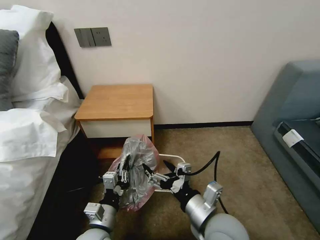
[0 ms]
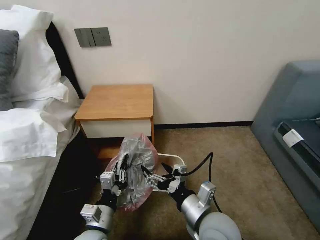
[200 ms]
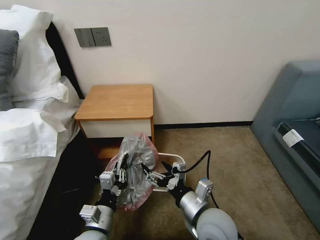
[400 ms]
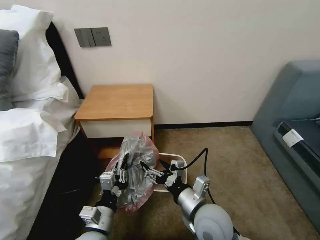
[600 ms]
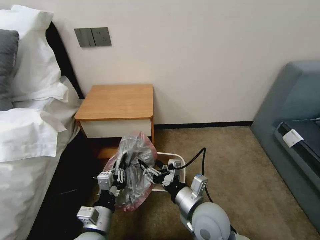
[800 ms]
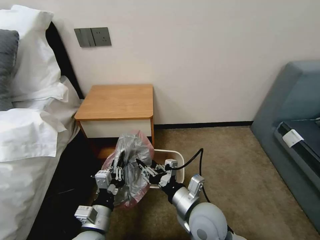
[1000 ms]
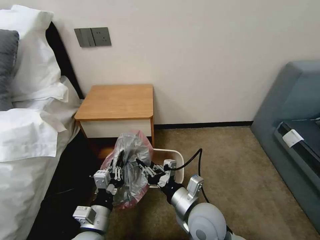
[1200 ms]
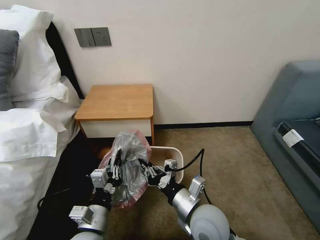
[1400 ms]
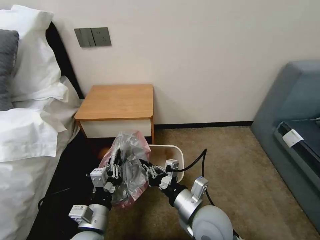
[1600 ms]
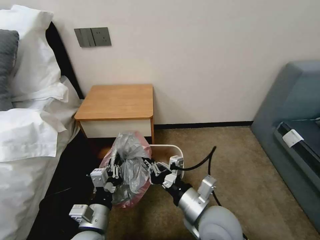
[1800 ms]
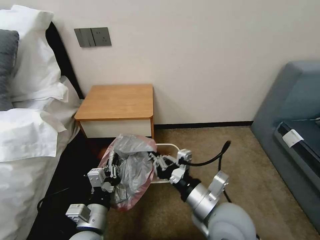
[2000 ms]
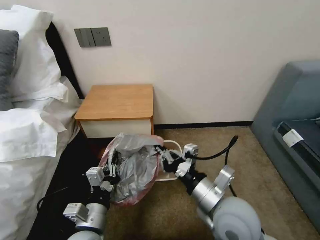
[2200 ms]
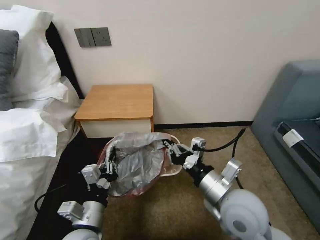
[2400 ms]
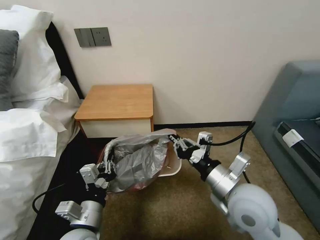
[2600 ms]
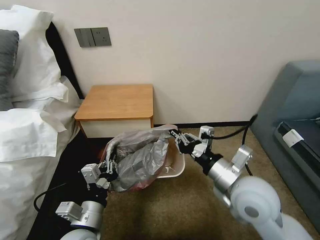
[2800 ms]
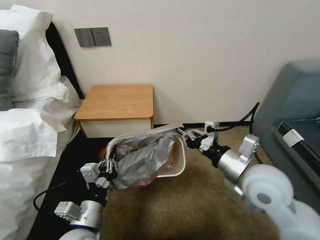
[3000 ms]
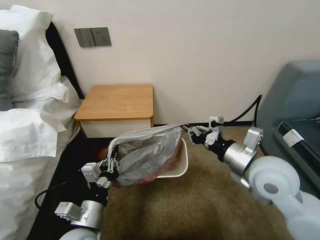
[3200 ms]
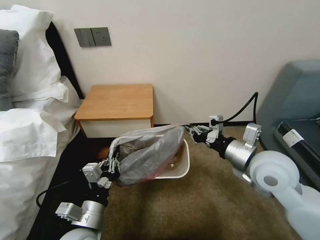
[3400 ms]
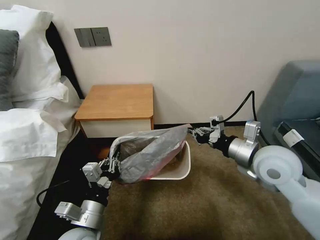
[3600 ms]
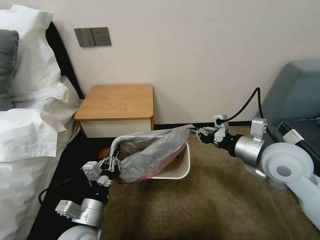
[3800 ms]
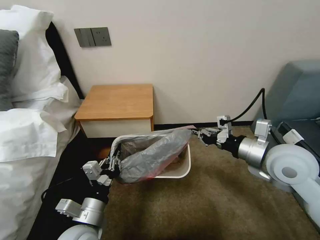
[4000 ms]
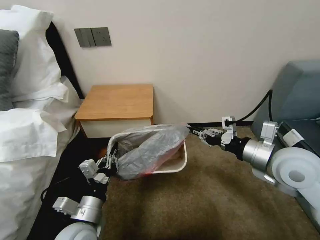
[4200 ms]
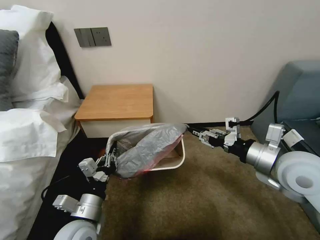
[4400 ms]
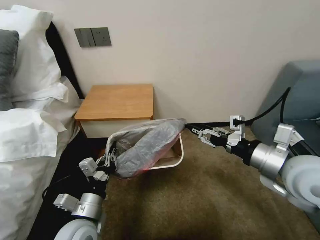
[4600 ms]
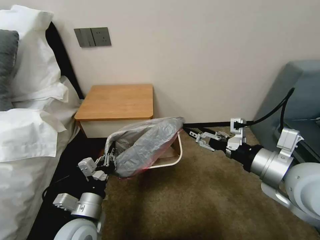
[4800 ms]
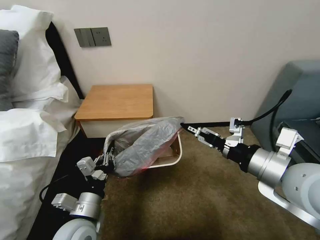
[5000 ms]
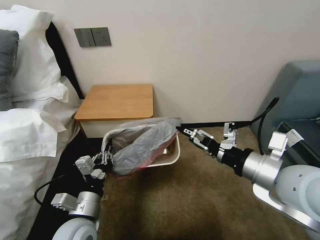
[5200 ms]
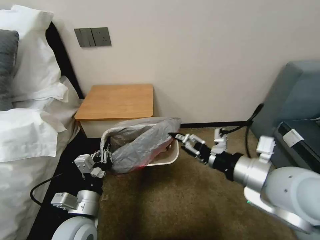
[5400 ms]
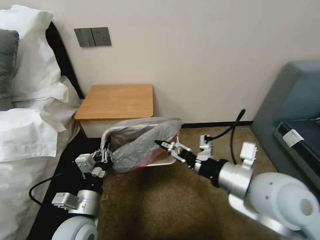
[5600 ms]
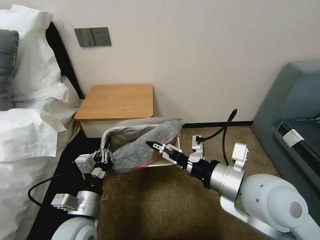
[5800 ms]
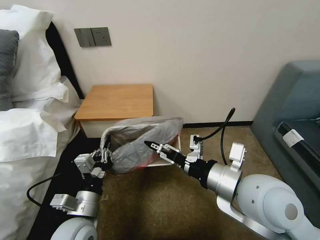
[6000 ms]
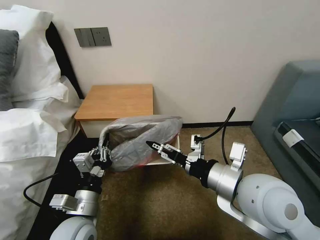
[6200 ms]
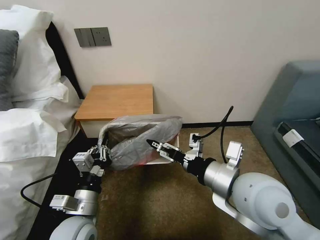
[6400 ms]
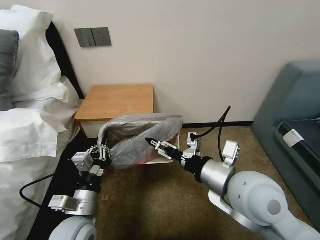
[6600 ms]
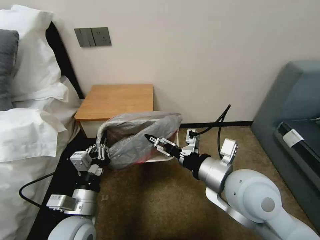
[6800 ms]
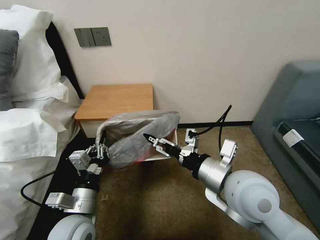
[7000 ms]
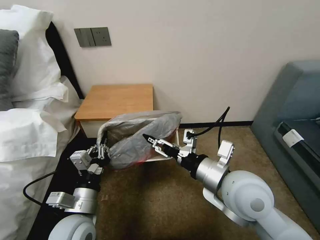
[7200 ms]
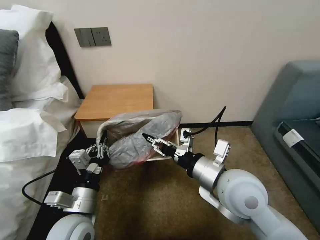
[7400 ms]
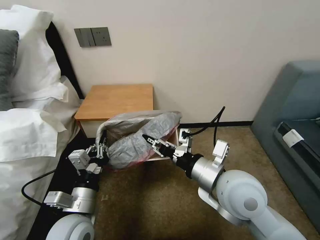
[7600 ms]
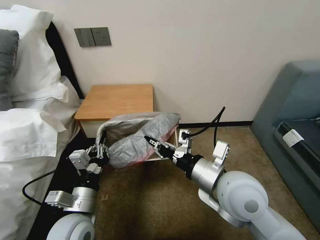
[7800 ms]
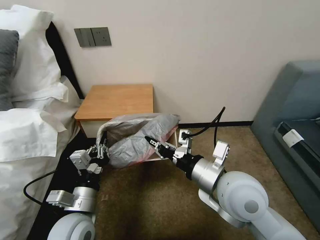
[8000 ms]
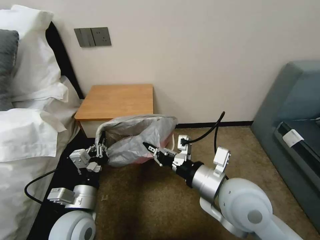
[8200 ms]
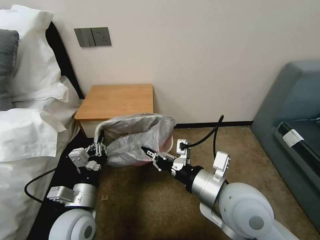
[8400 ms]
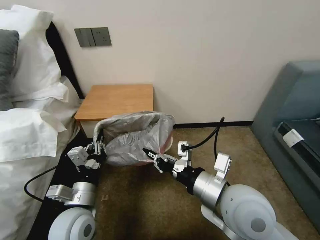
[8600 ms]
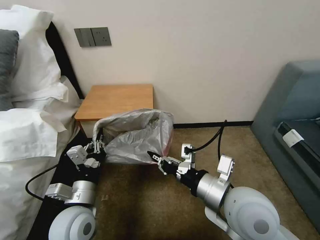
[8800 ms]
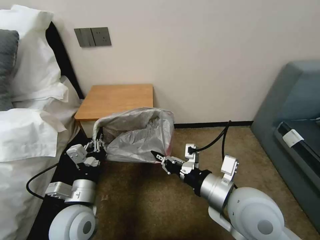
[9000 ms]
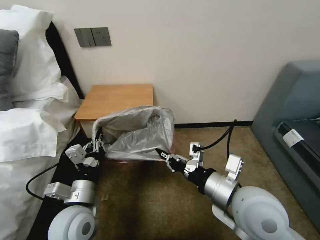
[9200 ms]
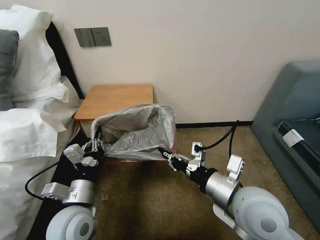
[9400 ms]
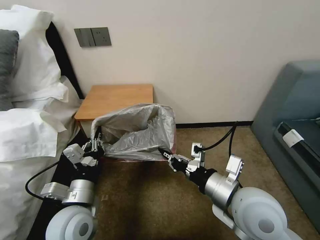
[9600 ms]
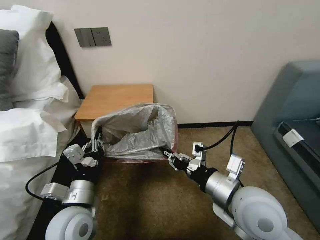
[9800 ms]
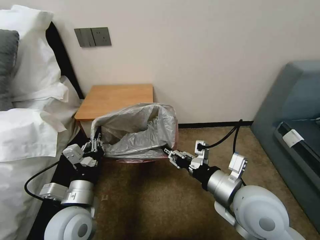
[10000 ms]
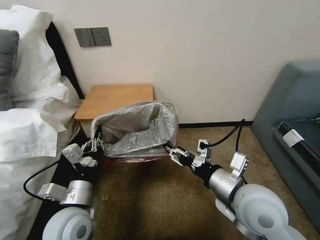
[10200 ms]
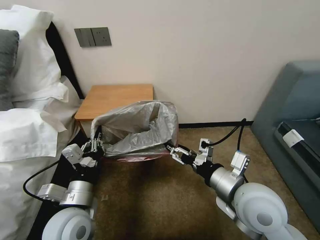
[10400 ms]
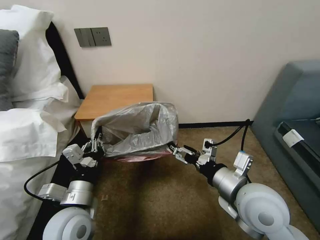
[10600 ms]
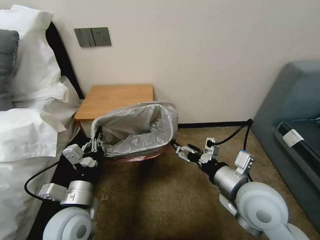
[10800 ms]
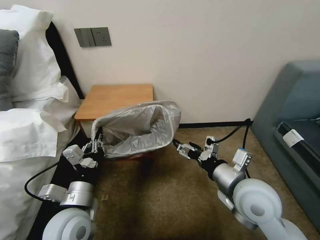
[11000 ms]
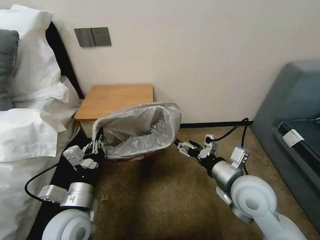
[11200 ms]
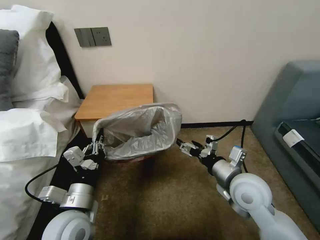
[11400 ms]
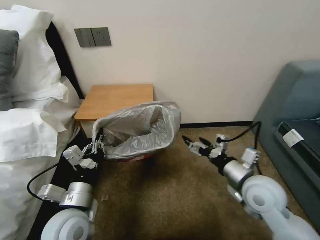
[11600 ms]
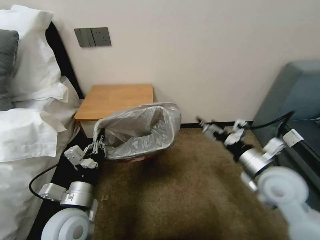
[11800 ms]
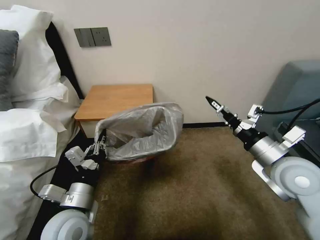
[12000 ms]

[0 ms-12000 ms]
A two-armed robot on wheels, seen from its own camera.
Task of the whole recording: Pick up the garbage bag from the table and place it over the trash can.
0 ms to 1600 ms: The right gripper closes up.
1600 ms to 3000 ms: The right gripper goes about 15 cm to the right, upward and forward.
3000 ms to 4400 ms: The right gripper heads to the right, covering some 5 cm, and opens.
4400 ms to 6000 ms: The right gripper shifts approximately 15 cm to the left and backward, and opens its fingers.
6000 ms to 7600 ms: The right gripper closes up.
7600 ms to 9000 ms: The grippers make only small movements.
9000 ms to 10400 ms: The right gripper opens its fingers.
10400 ms to 12000 ms: The right gripper goes about 10 cm to the right and forward.

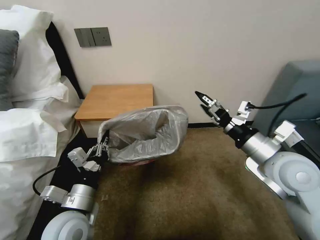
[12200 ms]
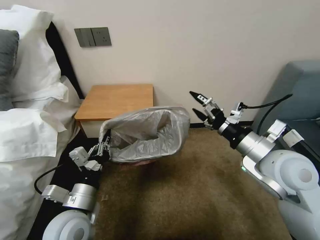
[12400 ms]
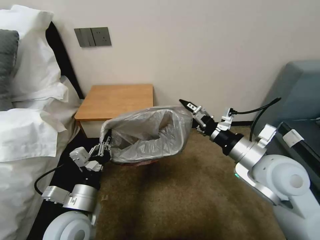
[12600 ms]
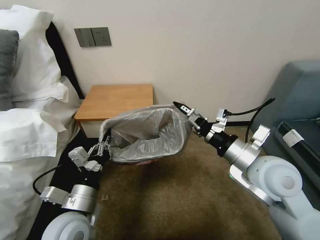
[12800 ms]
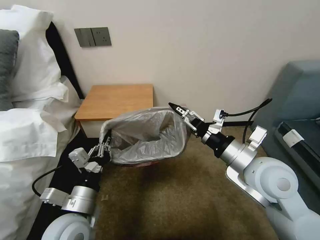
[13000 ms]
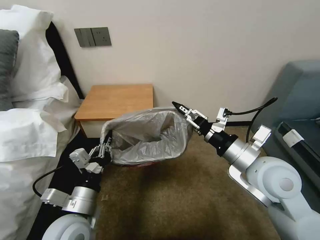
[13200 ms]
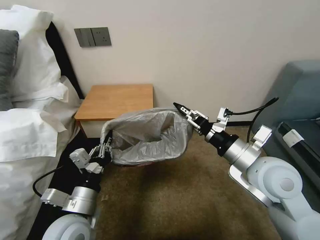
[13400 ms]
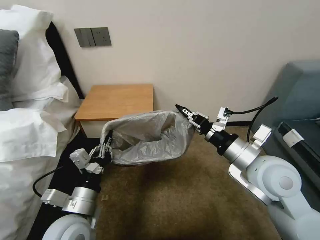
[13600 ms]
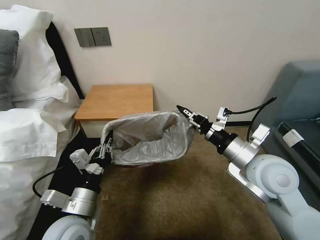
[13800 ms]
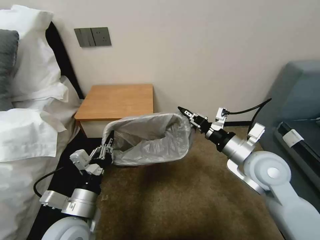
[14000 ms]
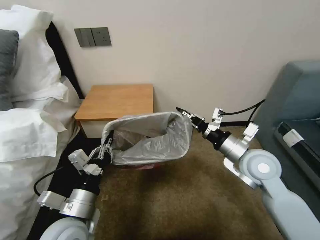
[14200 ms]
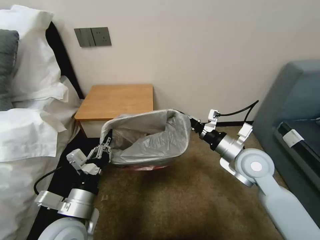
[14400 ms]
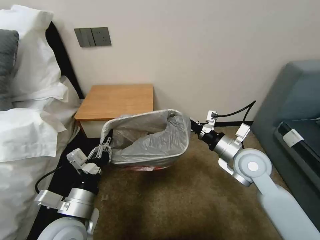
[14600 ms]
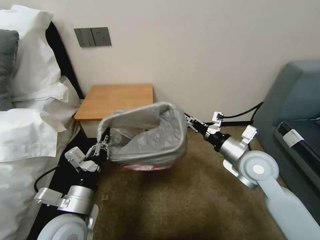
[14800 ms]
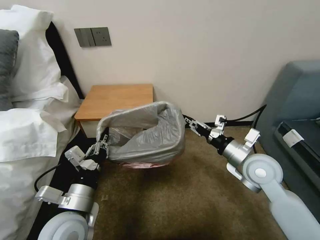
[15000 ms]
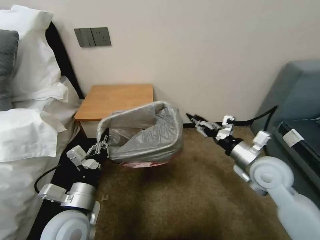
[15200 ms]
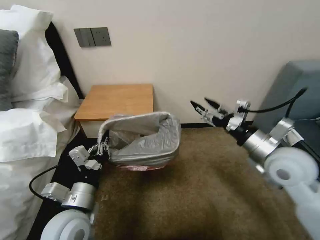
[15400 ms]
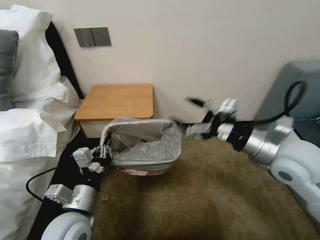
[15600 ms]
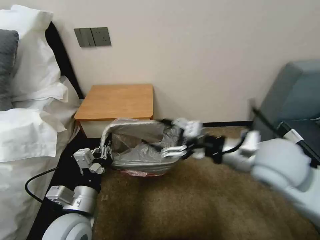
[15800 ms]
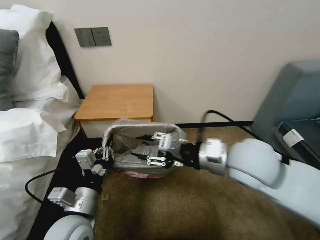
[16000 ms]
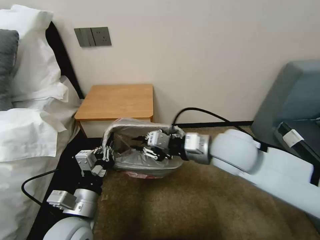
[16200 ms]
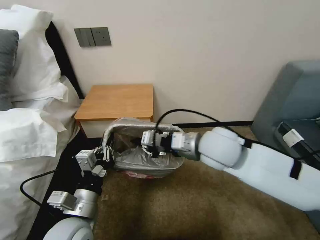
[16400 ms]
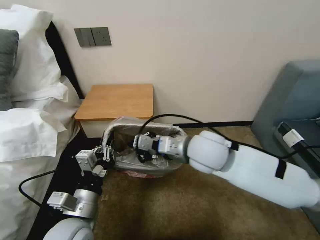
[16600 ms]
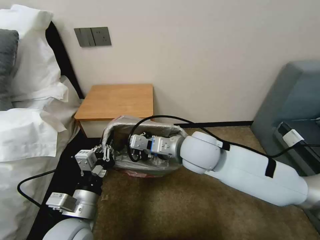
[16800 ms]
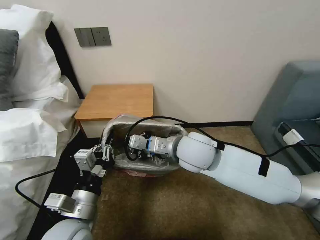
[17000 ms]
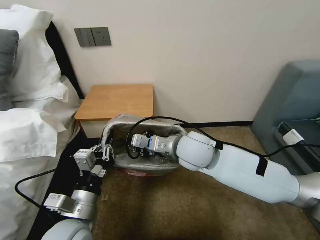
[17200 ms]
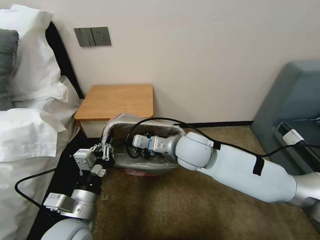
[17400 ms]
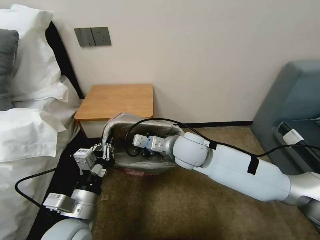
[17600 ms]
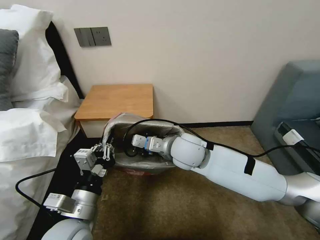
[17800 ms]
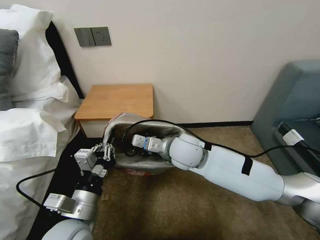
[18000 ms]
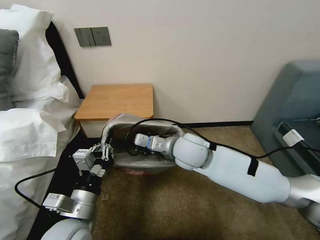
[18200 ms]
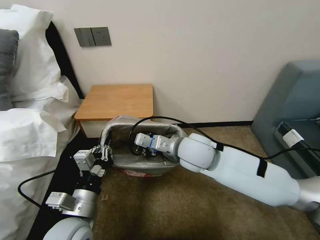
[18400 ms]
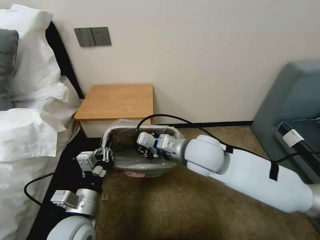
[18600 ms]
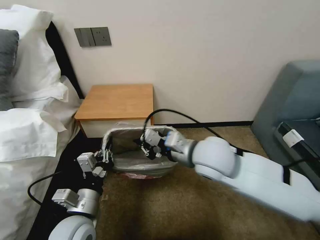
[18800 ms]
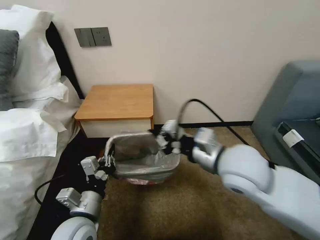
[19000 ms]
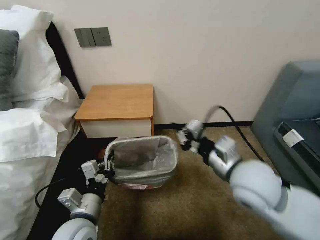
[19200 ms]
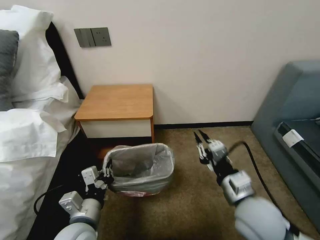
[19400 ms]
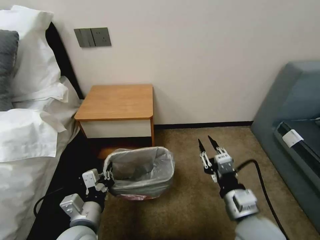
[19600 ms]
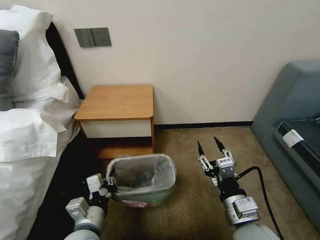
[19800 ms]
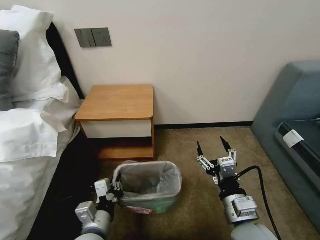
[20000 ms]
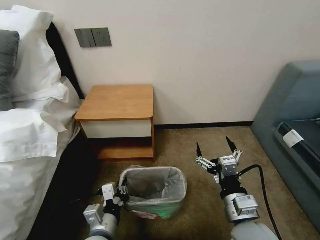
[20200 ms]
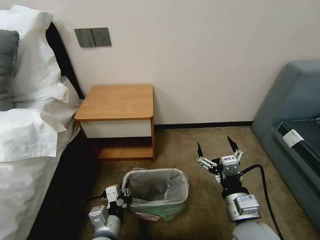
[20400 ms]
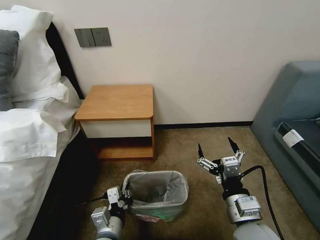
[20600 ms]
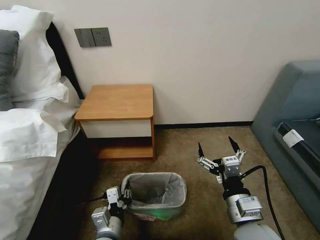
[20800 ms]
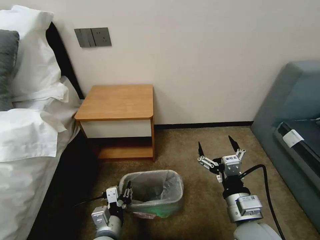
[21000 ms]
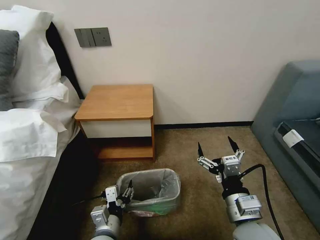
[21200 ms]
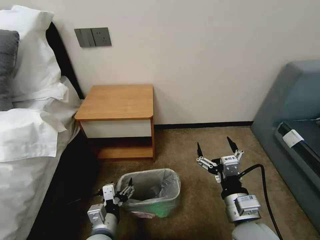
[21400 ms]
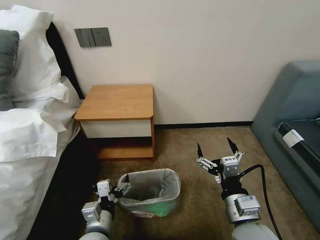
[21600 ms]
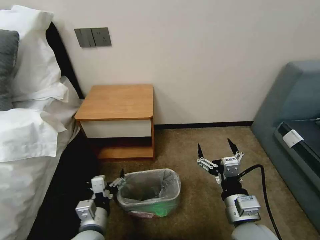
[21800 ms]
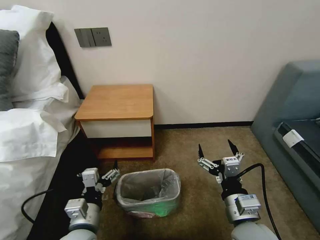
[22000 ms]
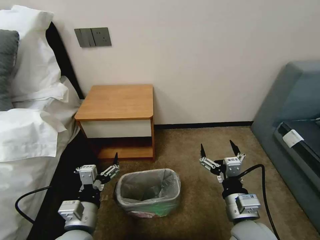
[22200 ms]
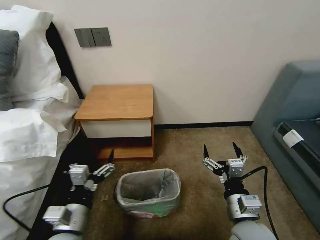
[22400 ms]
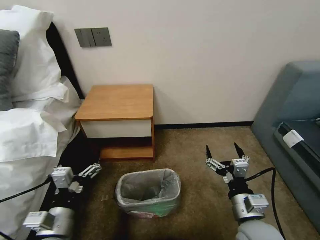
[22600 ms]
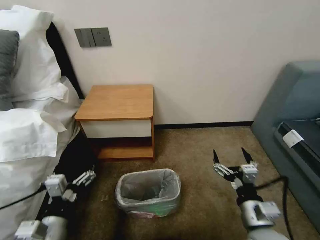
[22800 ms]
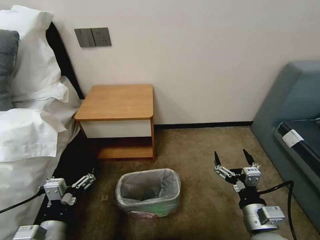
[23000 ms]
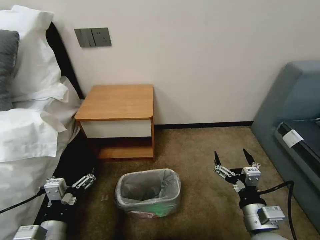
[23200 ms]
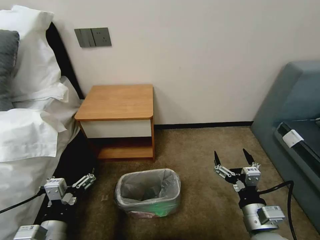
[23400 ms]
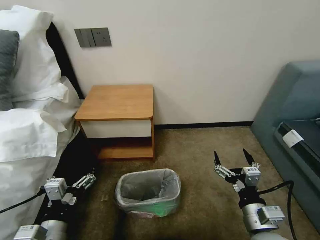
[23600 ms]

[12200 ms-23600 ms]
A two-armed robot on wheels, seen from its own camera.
Task of the whole recording: Pick up the garbage bag from the table and place it over the trash can.
12200 ms to 13600 ms: The right gripper closes.
13600 ms to 15000 ms: The right gripper shifts roughly 5 cm downward.
15000 ms to 16400 ms: The right gripper goes roughly 15 cm to the left and upward, and closes.
16400 ms to 17800 ms: The right gripper heads to the left and downward, covering some 10 cm.
17800 ms to 19400 ms: The right gripper goes some 20 cm backward and to the right.
19400 ms to 20800 ms: The right gripper shifts about 5 cm backward, and opens. The left gripper goes approximately 10 cm downward and to the right.
20800 ms to 22200 ms: The left gripper heads upward and to the left, covering roughly 10 cm, and opens up.
22200 ms to 23600 ms: The right gripper moves about 5 cm, while the left gripper moves to the left, about 5 cm.
